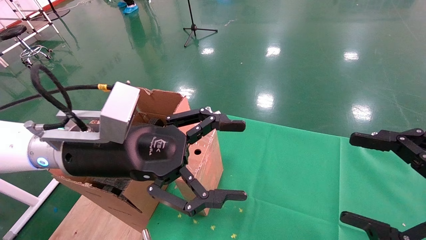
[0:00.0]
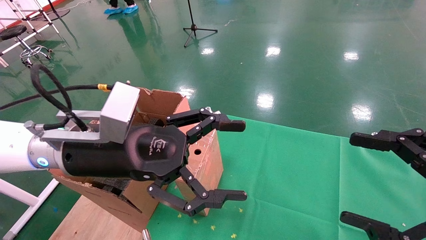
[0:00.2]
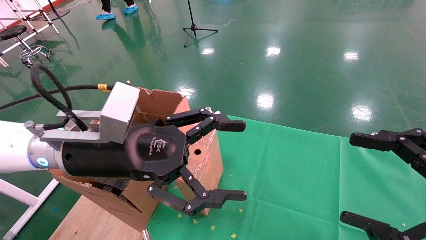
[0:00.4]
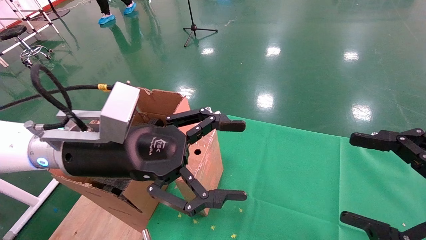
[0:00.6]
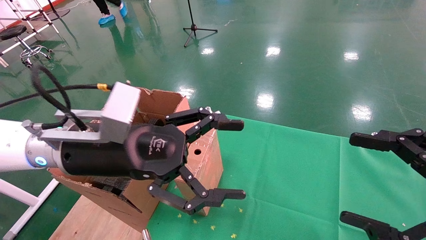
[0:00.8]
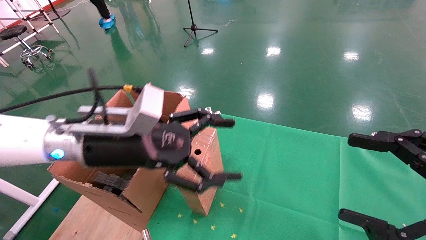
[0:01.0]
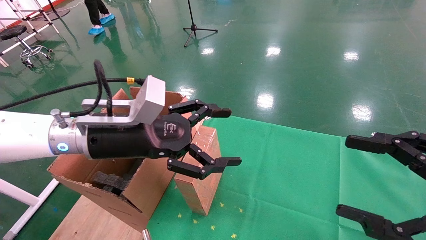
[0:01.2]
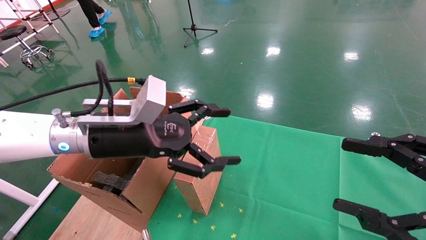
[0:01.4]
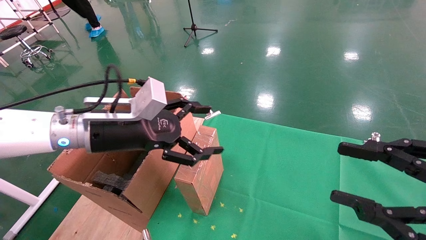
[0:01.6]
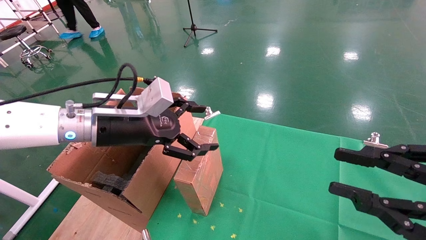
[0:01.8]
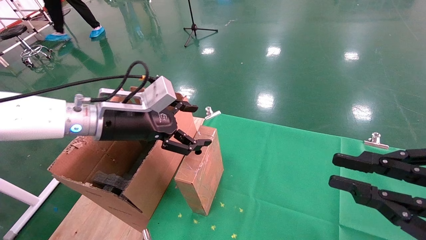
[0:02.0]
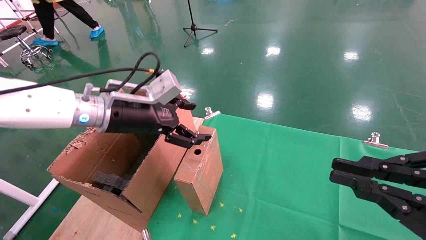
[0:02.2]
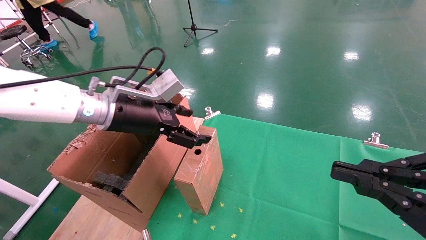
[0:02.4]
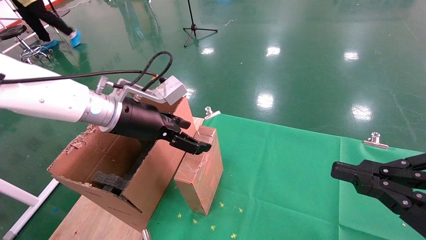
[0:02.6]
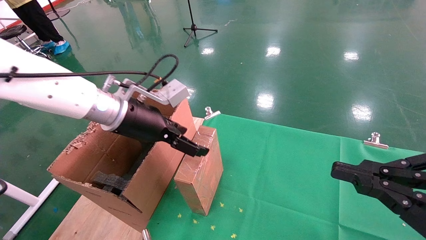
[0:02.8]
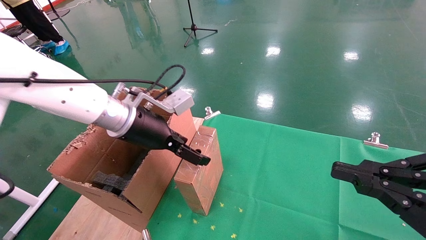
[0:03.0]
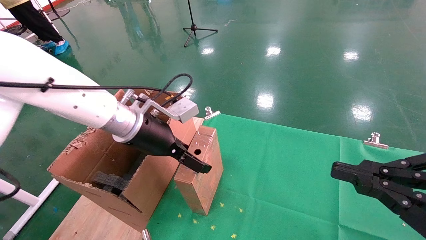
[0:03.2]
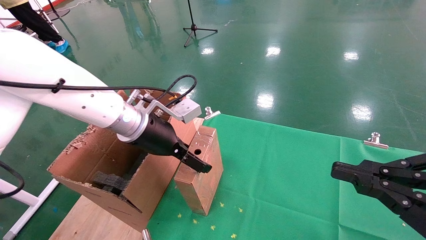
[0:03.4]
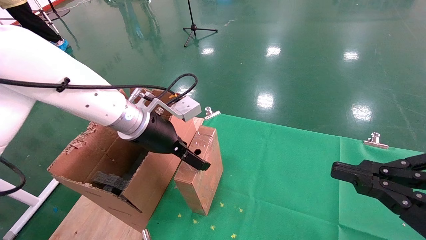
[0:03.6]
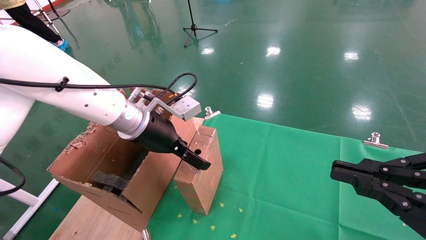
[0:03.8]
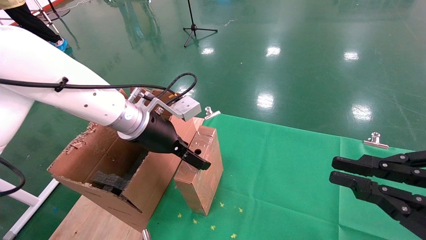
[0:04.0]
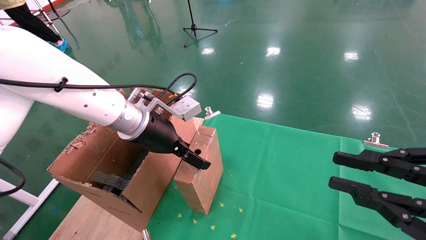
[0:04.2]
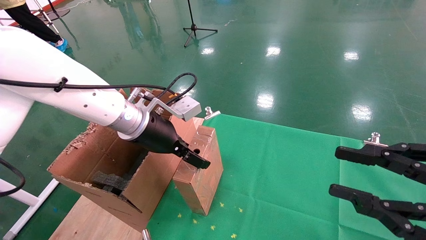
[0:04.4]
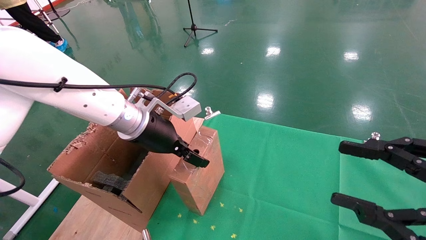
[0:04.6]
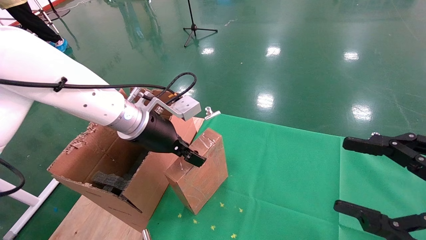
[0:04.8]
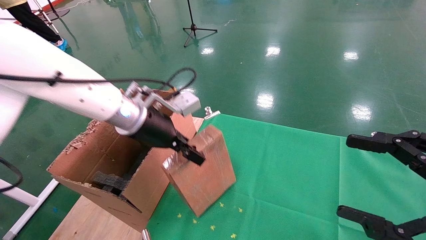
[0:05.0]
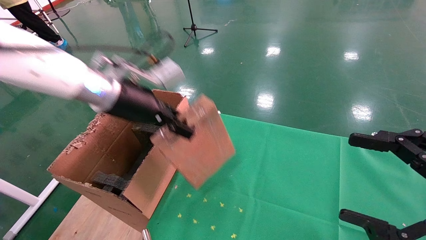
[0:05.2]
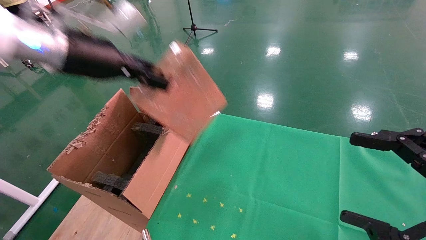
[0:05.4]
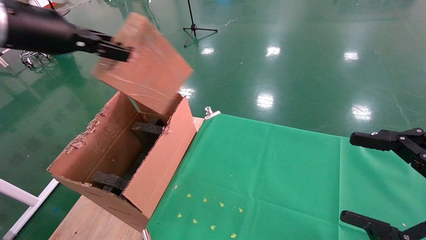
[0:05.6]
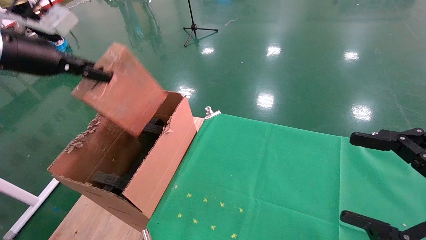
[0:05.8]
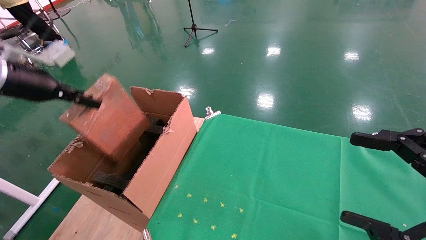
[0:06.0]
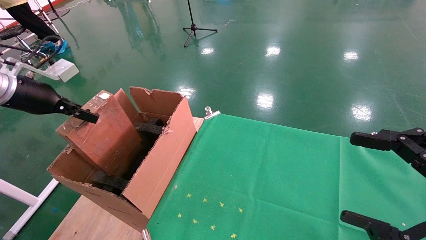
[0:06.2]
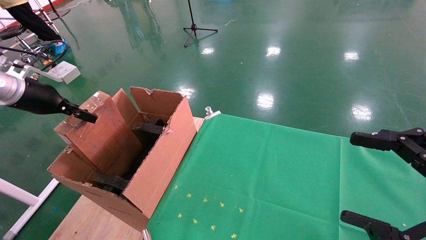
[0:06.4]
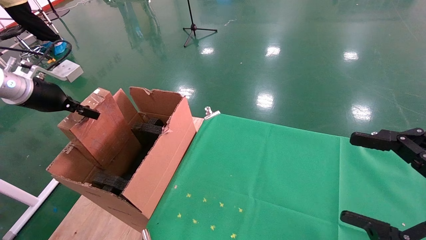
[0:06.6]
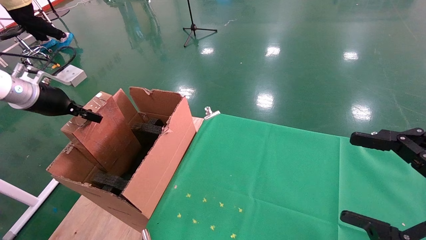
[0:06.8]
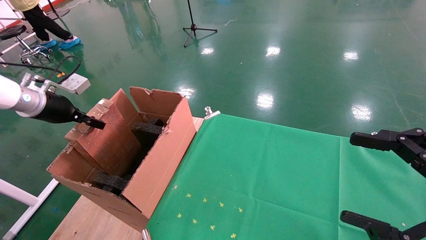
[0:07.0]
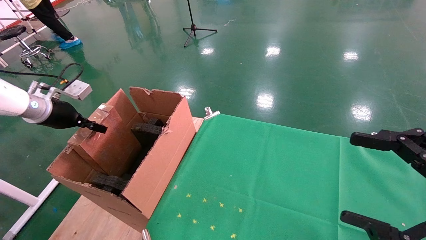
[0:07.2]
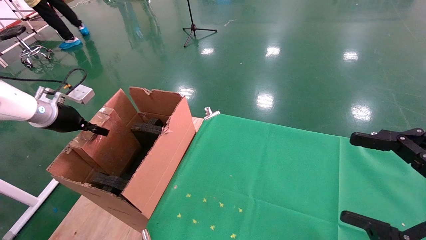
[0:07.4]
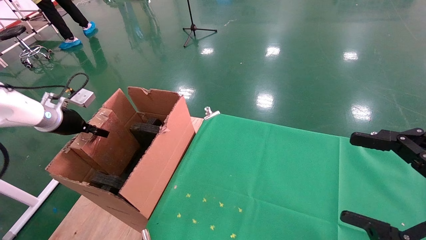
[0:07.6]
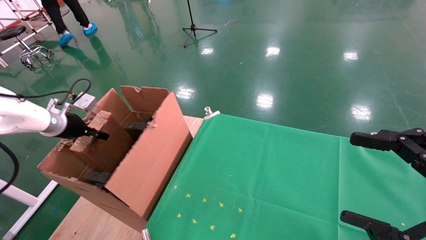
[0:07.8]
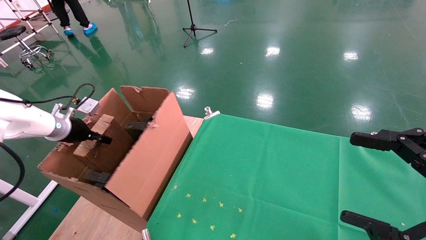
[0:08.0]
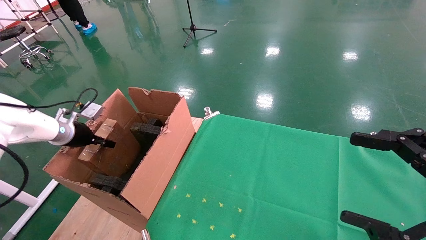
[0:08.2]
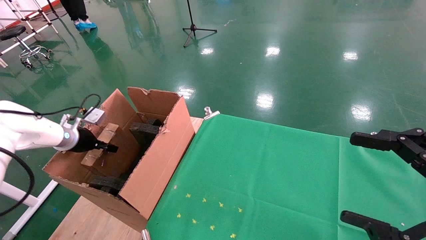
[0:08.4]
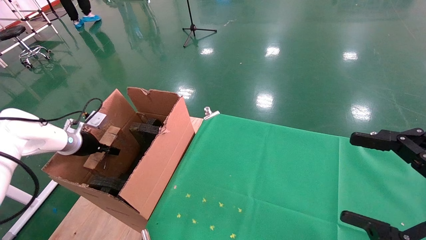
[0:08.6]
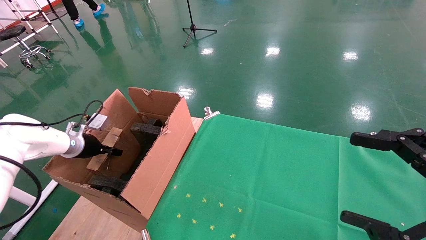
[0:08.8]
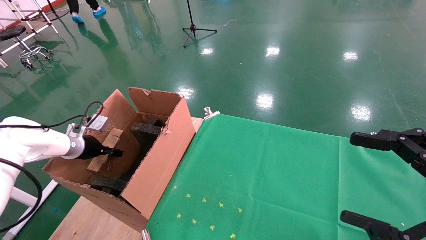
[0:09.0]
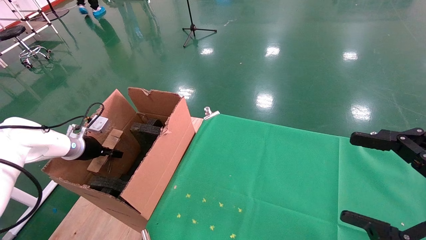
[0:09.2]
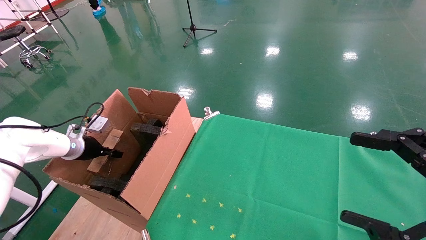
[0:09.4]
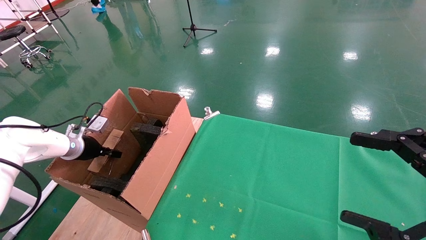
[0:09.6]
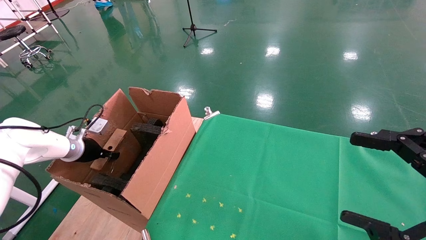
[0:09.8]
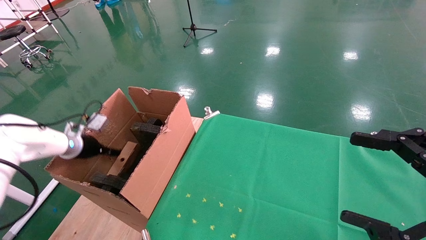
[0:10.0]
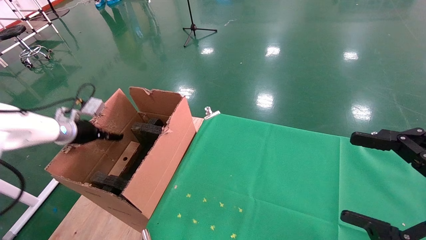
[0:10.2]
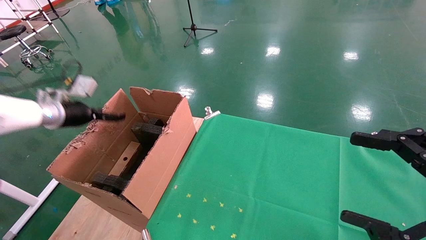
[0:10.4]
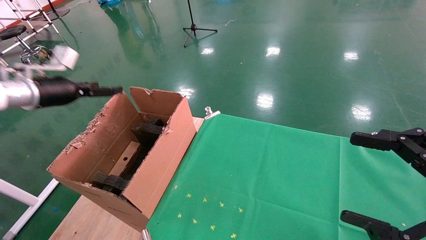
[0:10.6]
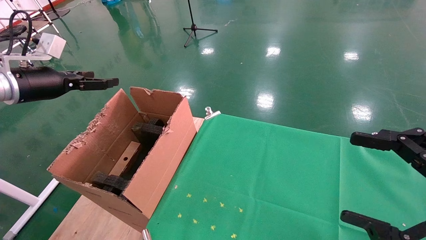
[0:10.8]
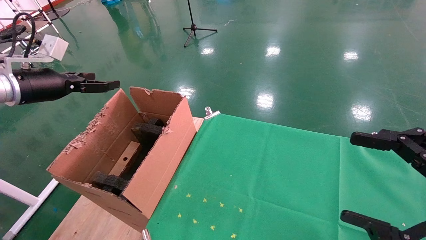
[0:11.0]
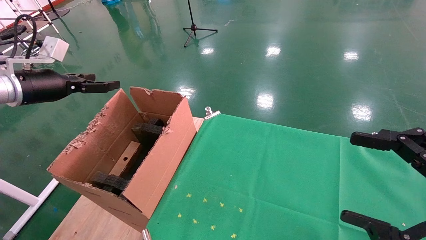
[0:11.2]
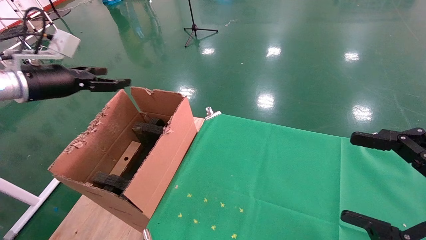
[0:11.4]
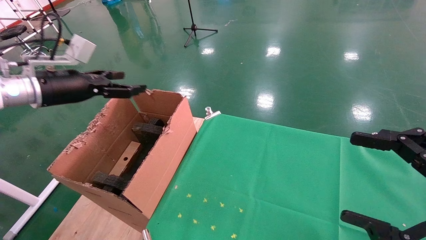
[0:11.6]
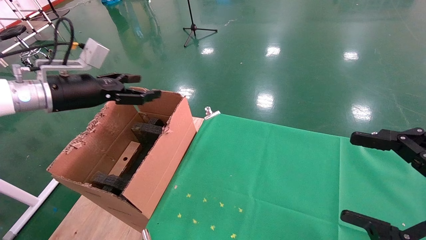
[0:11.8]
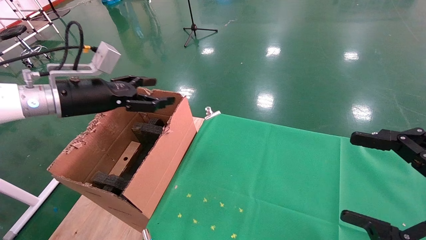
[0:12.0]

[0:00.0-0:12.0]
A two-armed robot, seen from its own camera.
Task of the whole recording: using a robotic arm to pick up a cardboard box and palace it the carton.
Step, 0:01.0 to 0:04.6: Pick up the mouse and the power cord paper box.
Step, 0:04.8 to 0:10.6: Place the mouse and the power cord paper box into the container.
0:00.0 to 0:01.6: The right gripper closes up. The left gripper moves forward, roughly 5 cm.
0:01.6 to 0:03.0: The left gripper shifts by about 5 cm, while the right gripper closes its fingers.
0:03.0 to 0:04.4: The grippers move only a little.
0:04.4 to 0:06.0: The left gripper travels to the left by some 25 cm, and closes its fingers. Meanwhile the right gripper opens.
0:06.0 to 0:07.6: The left gripper heads downward and forward, covering approximately 15 cm.
0:07.6 to 0:09.0: The left gripper shifts approximately 10 cm downward.
0:09.0 to 0:10.4: The left gripper shifts about 10 cm upward, and opens up.
0:10.4 to 0:12.0: The left gripper moves to the right, backward and upward, approximately 15 cm.

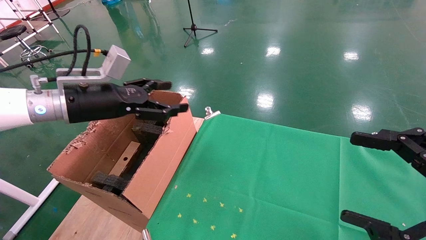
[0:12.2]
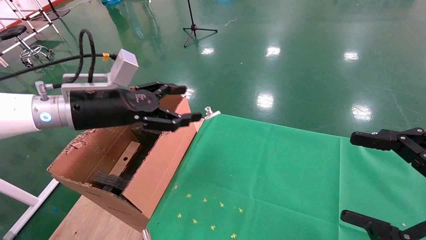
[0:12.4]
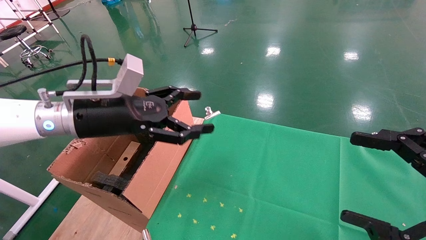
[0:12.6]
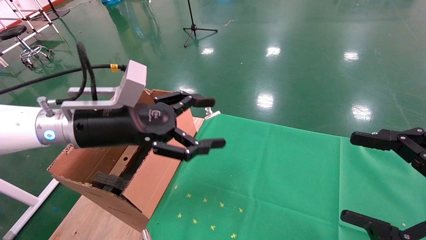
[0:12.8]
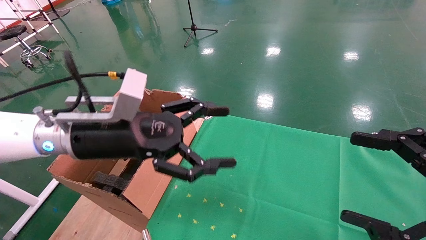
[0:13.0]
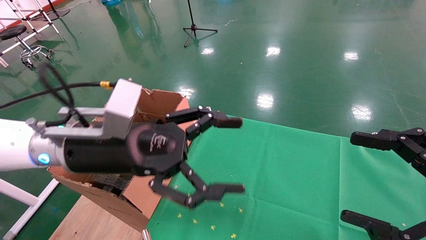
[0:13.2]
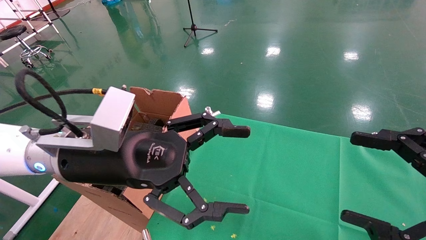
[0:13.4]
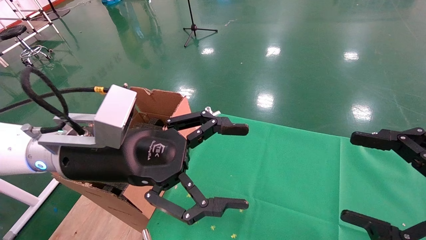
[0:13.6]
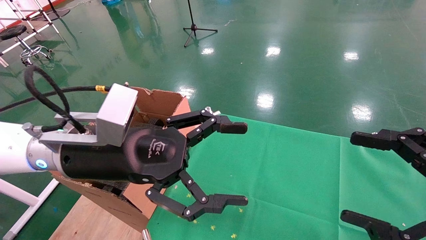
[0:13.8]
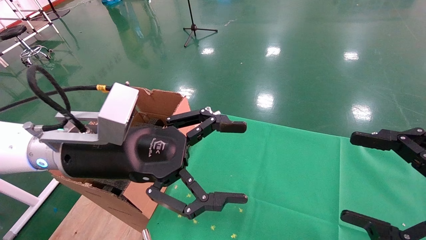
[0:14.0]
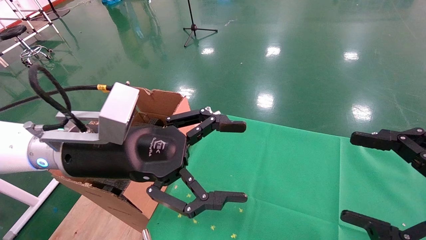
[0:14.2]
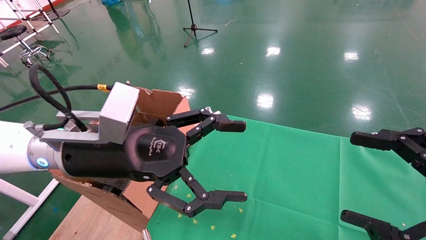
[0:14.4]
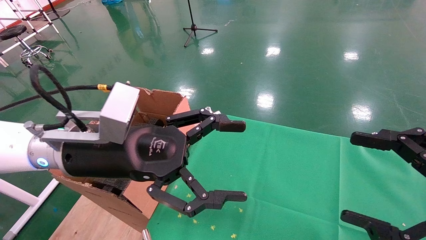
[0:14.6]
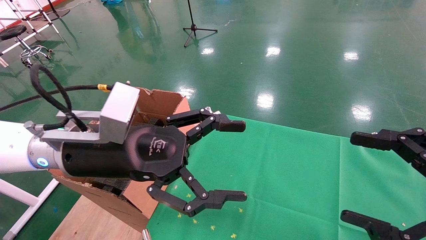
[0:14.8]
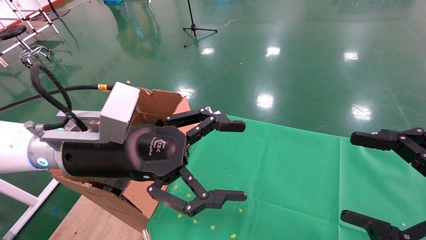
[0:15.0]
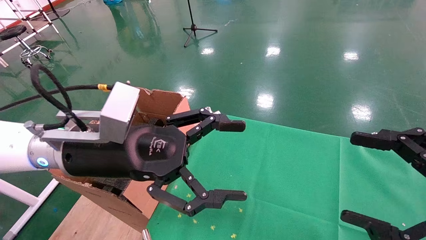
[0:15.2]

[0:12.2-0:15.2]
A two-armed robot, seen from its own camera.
Task of the whole recording: using a robotic arm to pick up a cardboard box and palace it the carton.
0:12.2 to 0:13.8: The left gripper shifts about 15 cm to the right and backward.
0:13.8 to 0:15.2: Both grippers stay about where they are.
